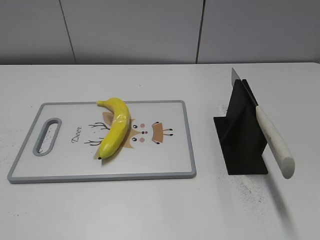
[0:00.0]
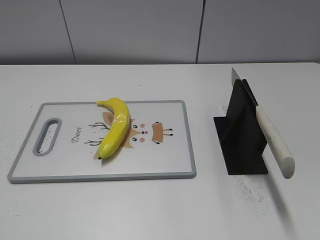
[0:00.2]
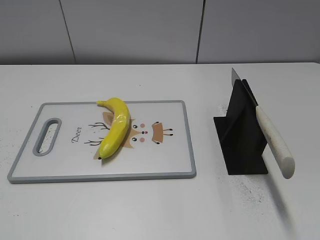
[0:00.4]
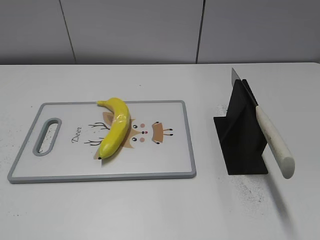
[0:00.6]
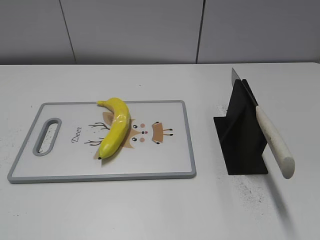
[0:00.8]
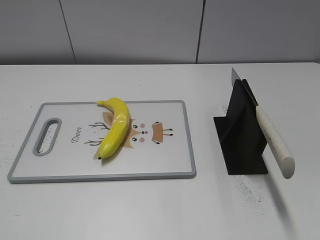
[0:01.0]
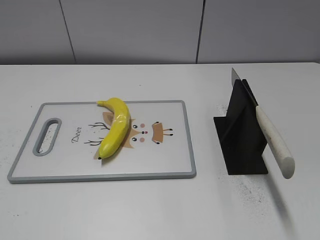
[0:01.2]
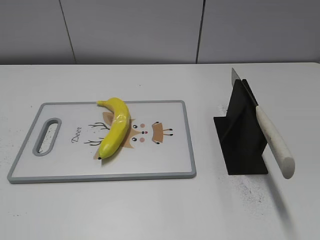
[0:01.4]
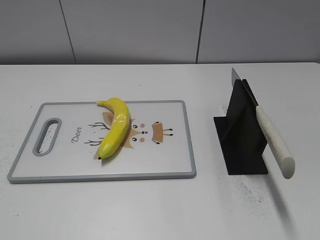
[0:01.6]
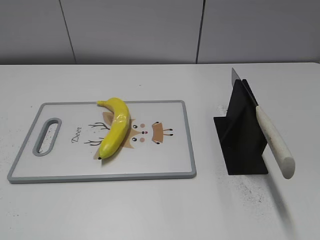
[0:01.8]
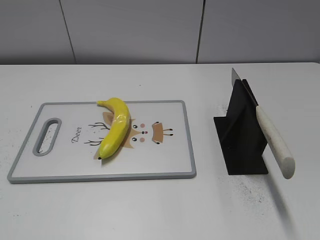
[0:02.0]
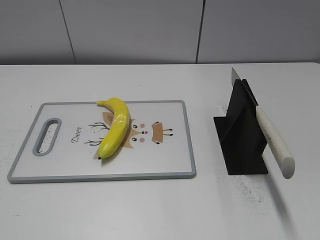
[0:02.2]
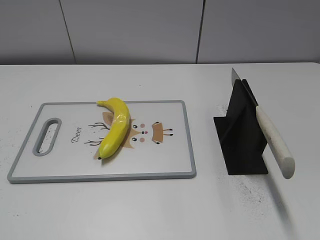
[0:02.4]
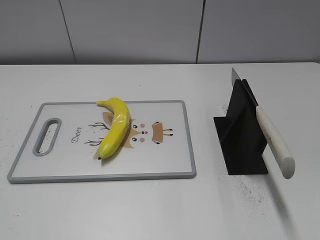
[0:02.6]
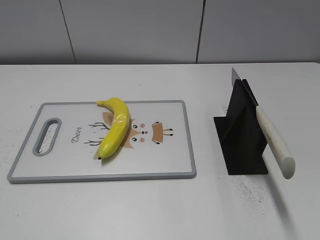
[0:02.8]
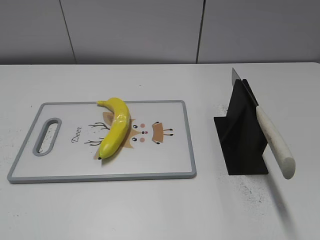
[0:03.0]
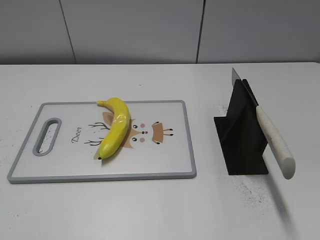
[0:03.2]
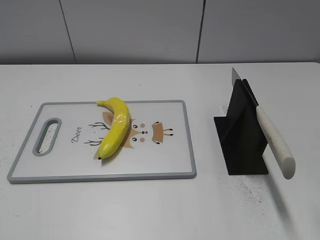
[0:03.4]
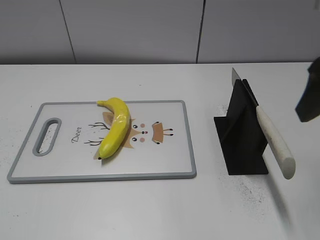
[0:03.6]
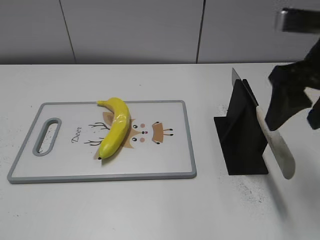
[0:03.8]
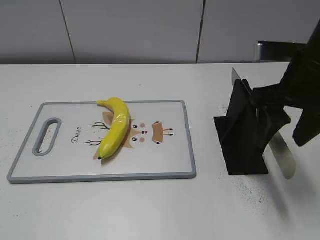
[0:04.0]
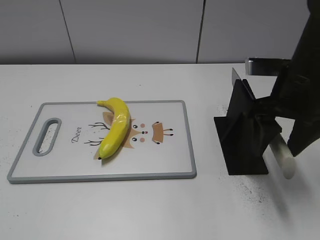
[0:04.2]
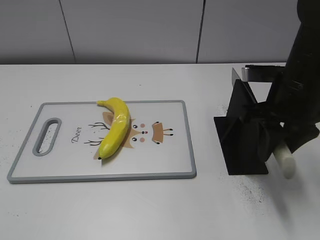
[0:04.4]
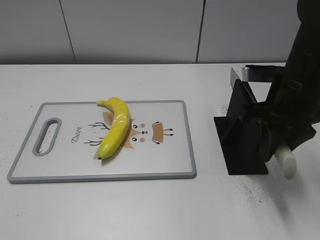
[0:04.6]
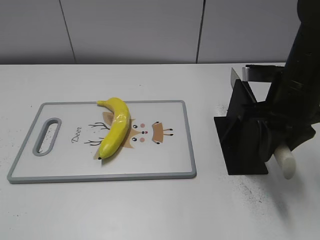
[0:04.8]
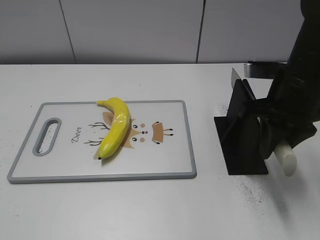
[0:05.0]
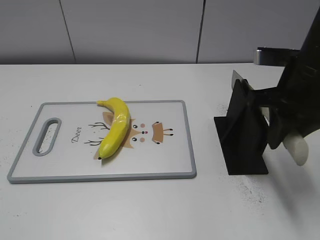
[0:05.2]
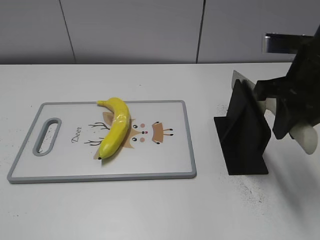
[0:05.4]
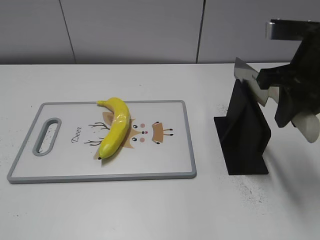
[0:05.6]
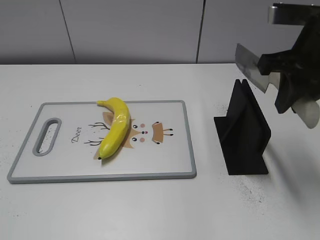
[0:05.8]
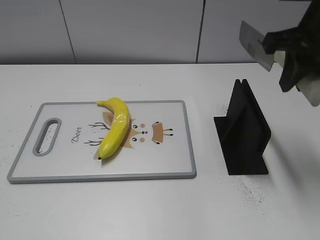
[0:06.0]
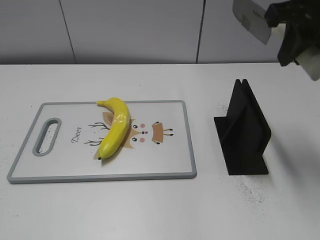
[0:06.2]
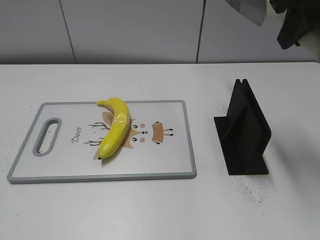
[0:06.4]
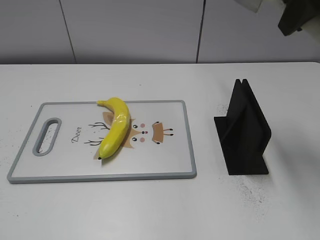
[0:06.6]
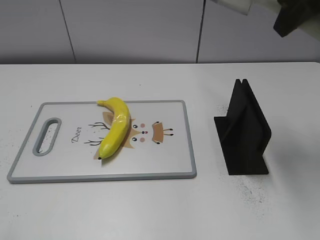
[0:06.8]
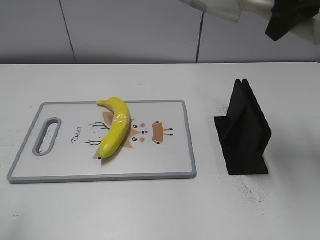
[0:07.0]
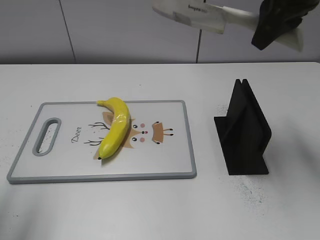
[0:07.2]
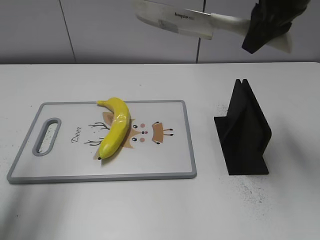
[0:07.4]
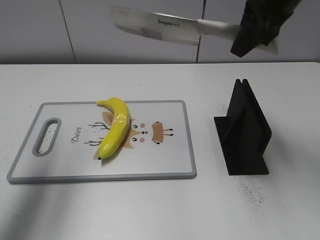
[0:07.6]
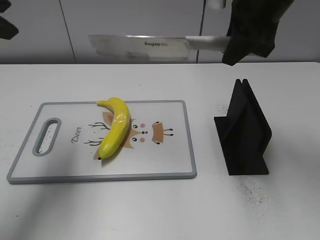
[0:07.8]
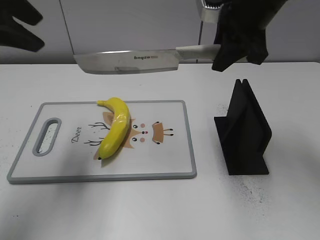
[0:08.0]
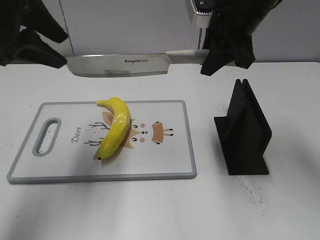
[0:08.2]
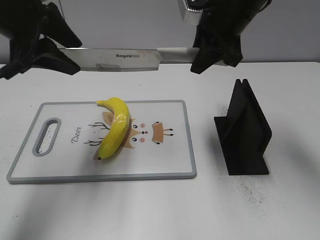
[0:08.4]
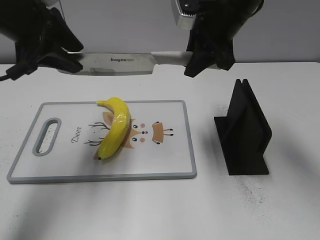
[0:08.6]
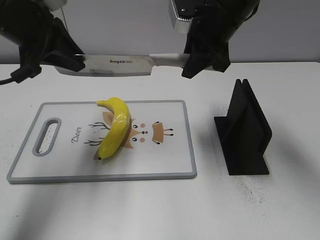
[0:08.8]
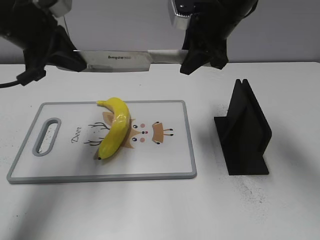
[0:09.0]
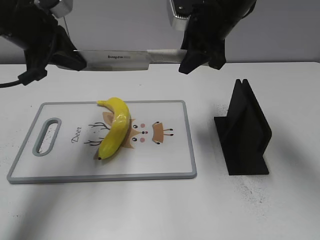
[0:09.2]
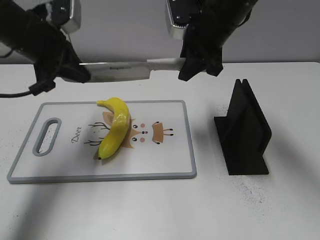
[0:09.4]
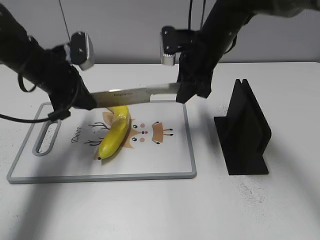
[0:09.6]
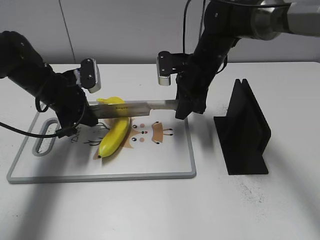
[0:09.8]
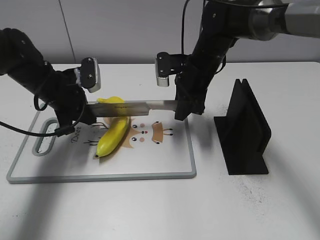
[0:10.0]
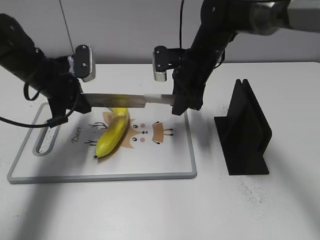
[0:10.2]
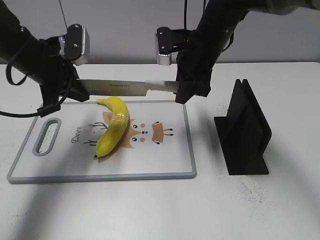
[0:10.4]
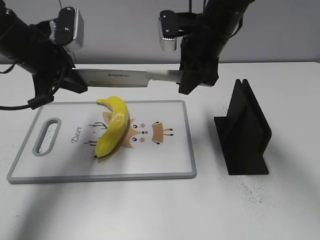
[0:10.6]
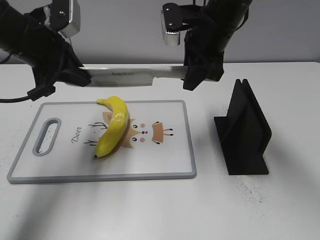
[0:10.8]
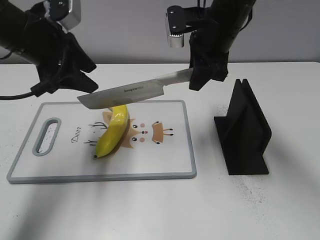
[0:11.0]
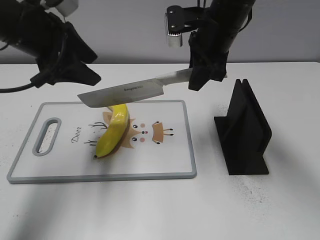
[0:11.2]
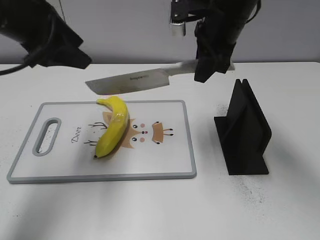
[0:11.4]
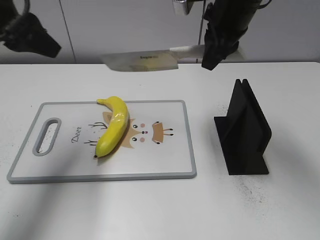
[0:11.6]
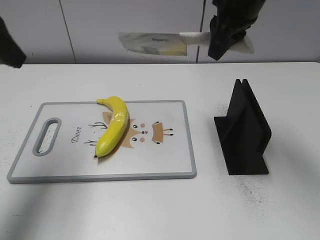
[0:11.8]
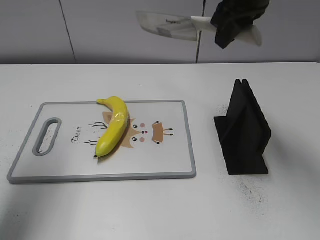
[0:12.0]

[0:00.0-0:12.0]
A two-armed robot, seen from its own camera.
Task of the whole recording: cut plastic banana.
Step, 0:00.0 to 0:05.4: Grab the knife handle with your right hand.
Step, 0:05.6 to 0:11.0: Lift the knife with your right hand.
0:03.0 to 0:04.4: The right gripper heads forward, downward and to the left, covering about 25 cm, and closes.
0:04.4 to 0:06.0: The right gripper moves upward, some 10 cm.
0:06.0 to 0:07.6: The right gripper is displaced forward by roughly 5 cm. The left gripper shifts about 25 cm forward.
0:07.6 to 0:09.0: The left gripper goes approximately 15 cm downward, forward and to the right, and closes; the right gripper travels downward and to the left by some 10 cm.
0:09.0 to 0:10.4: The grippers both shift downward by roughly 5 cm.
0:10.4 to 0:12.0: The right gripper is displaced upward by roughly 15 cm, while the left gripper goes some 20 cm upward, backward and to the left, and opens up.

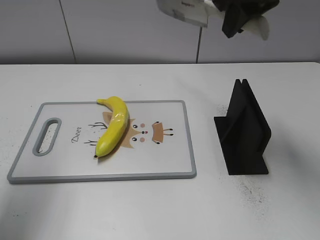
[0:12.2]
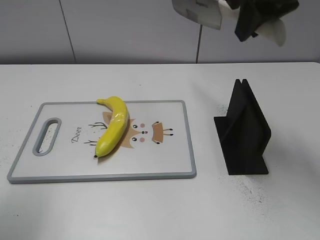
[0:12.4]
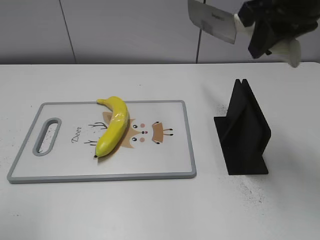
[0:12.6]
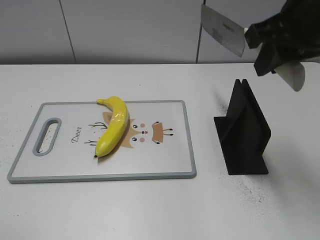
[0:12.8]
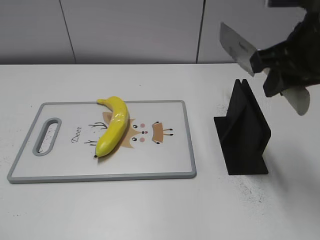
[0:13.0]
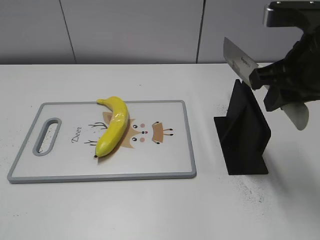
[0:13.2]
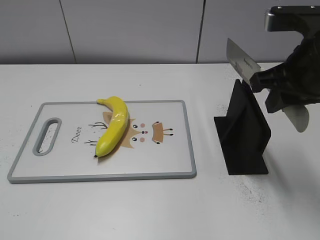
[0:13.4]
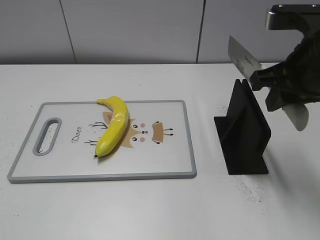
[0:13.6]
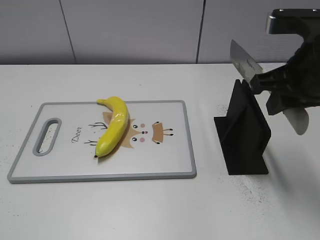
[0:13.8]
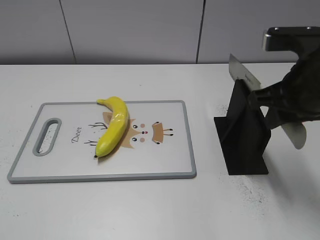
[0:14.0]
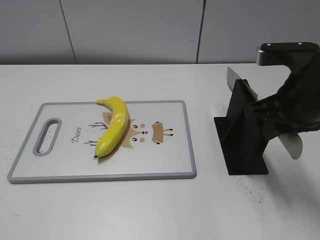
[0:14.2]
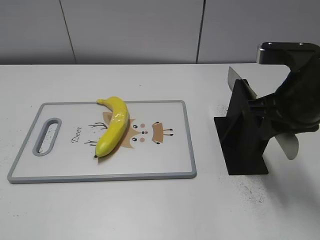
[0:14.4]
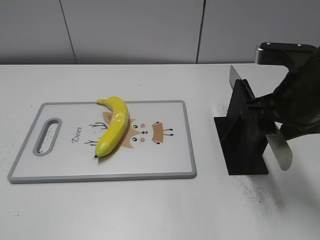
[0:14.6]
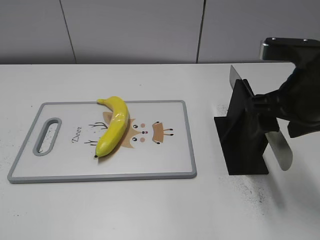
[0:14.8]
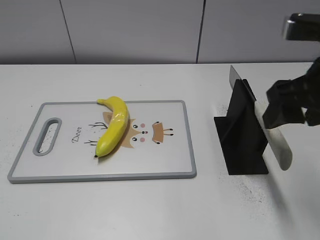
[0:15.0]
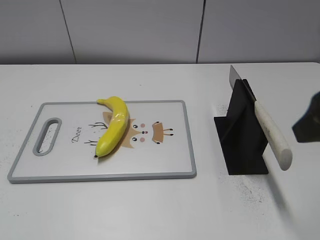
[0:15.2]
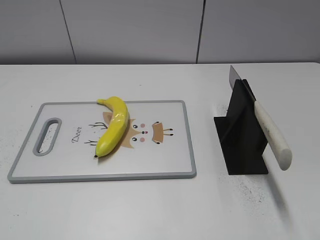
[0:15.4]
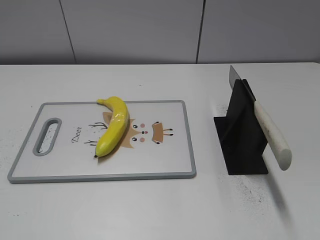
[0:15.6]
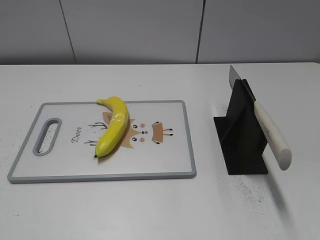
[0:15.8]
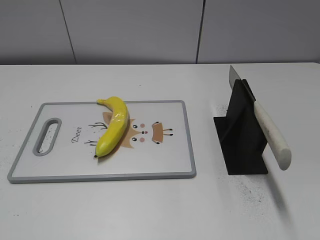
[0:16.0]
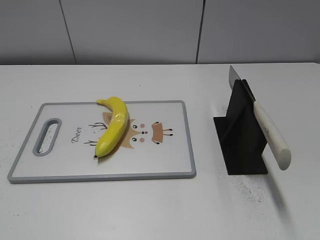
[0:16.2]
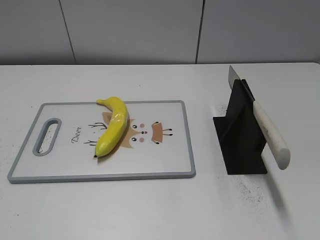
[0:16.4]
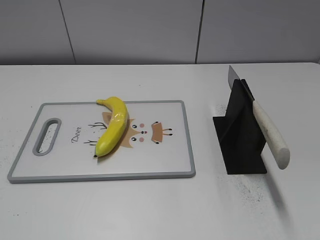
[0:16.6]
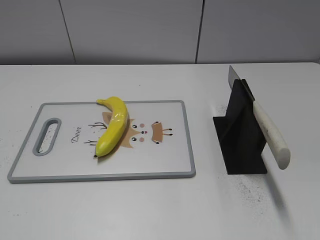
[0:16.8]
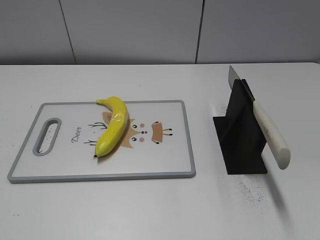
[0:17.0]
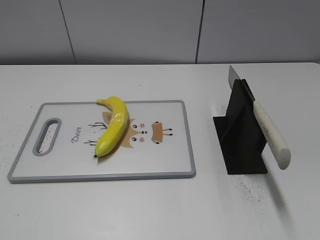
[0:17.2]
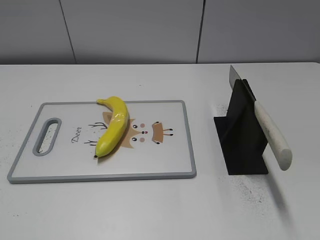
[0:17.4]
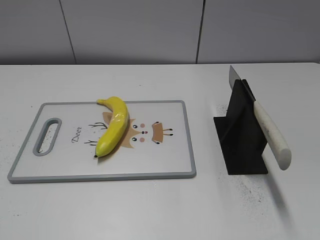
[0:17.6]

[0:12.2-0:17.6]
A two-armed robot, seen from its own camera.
Task of the whole recording: cut plastic banana.
Step, 0:12.6 to 0:13.2: Lift the knife with your right hand.
Step, 0:13.6 to 0:17.6: Place the knife on the storage rack with your right hand.
0:12.2 to 0:13.6: The left gripper moves backward, approximately 25 cm, while the right gripper moves backward, downward and to the right, roughly 15 cm.
0:13.6 to 0:15.0: The right gripper opens its fingers.
0:15.0 to 0:16.2: The right gripper heads backward and to the right, covering some 25 cm.

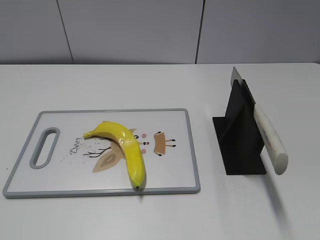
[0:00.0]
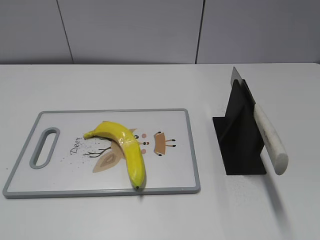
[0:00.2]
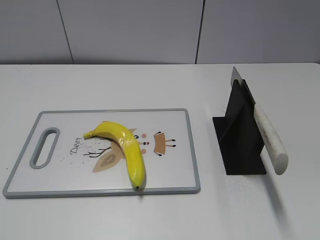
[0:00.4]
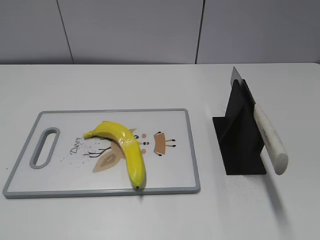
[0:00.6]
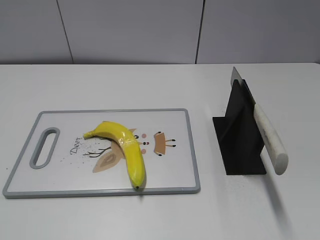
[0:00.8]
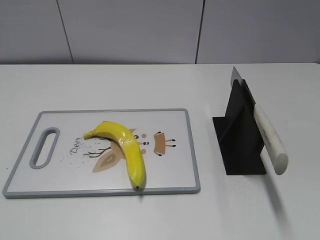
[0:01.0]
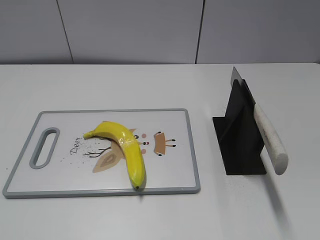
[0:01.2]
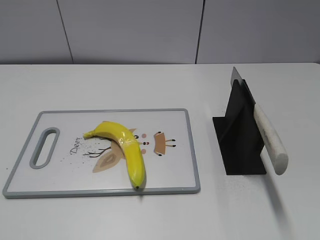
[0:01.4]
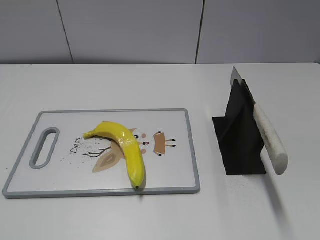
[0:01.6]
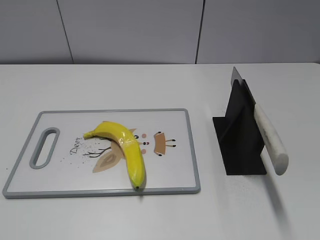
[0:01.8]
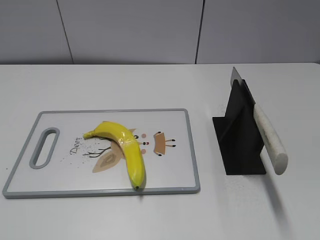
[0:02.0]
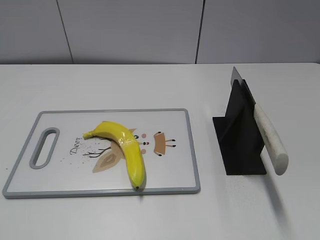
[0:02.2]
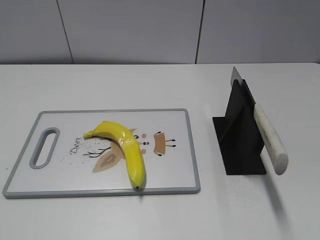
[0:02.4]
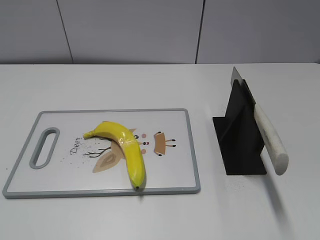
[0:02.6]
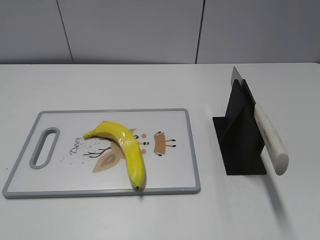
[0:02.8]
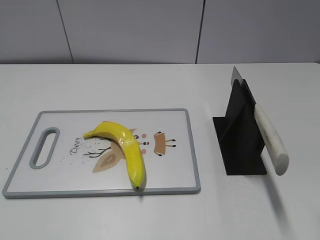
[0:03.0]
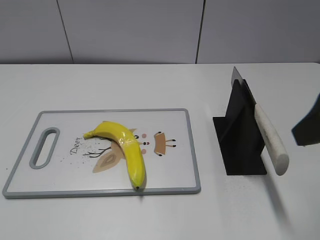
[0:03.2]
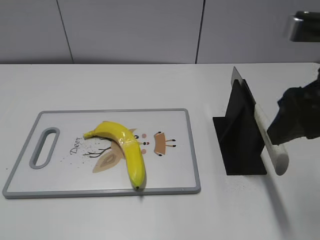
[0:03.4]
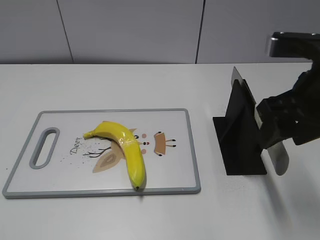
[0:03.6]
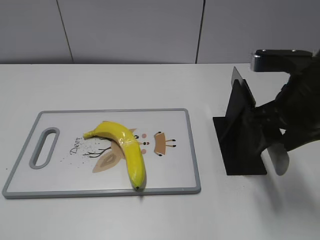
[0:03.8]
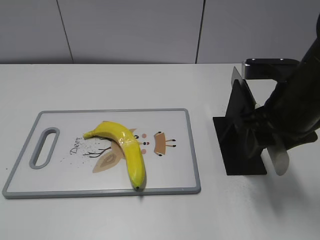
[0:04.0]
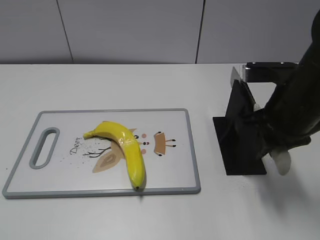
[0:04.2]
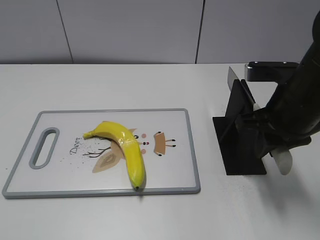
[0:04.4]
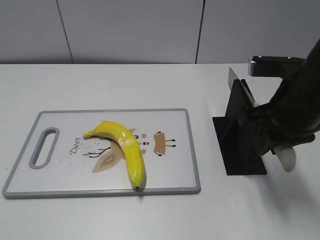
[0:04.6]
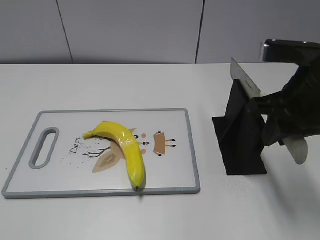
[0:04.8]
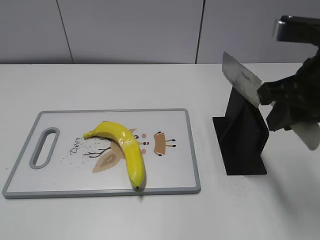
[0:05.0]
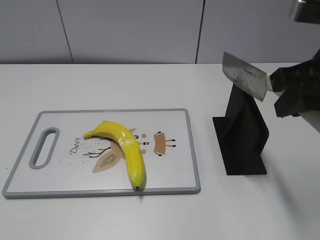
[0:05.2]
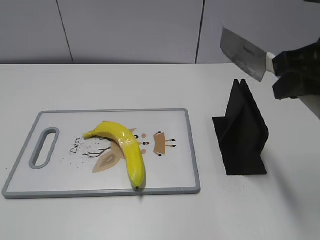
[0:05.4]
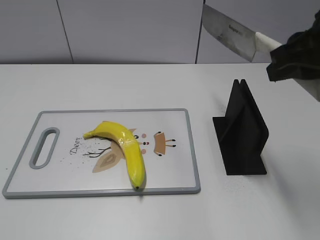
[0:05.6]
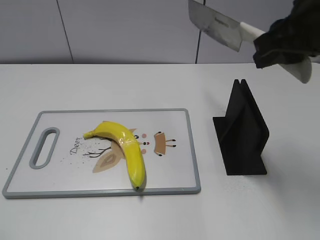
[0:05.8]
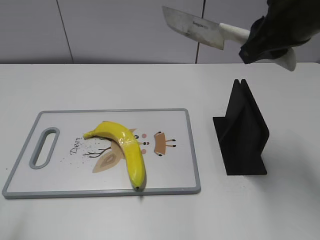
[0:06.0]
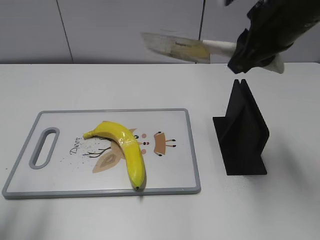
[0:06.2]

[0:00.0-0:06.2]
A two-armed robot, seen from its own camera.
Task of the whole recording: cut plastic banana.
Step, 0:00.0 to 0:05.2: Grab the knife handle with your right hand.
0:01.6 to 0:03.2: The right gripper shifts some 20 cm forward.
0:03.2 to 0:04.6: The right gripper heads downward and forward, covering some 10 cm, and closes up.
0:04.6 to 0:06.2: The left gripper is displaced forward by approximately 15 cm. Meanwhile the right gripper shifts about 10 cm upward and forward.
